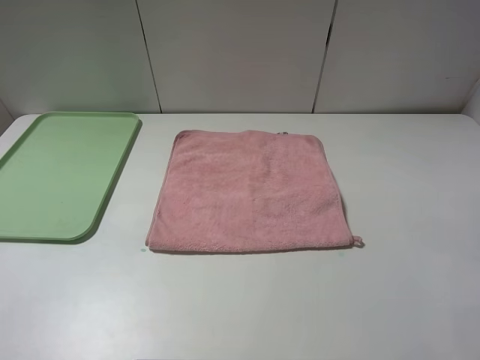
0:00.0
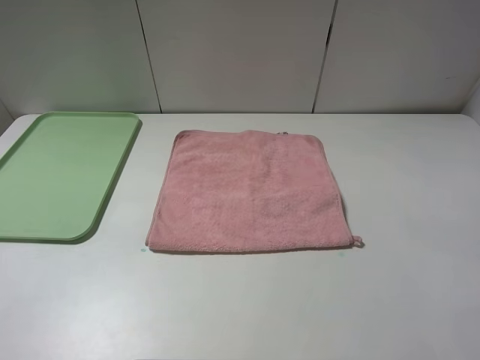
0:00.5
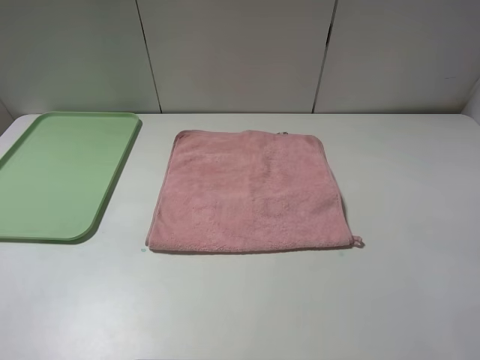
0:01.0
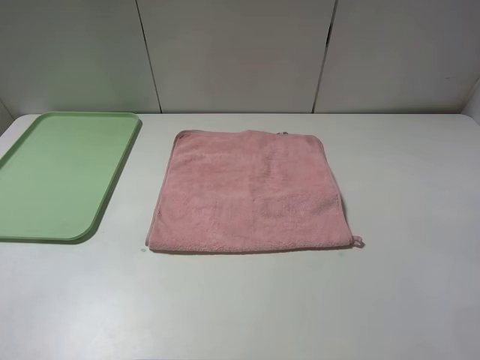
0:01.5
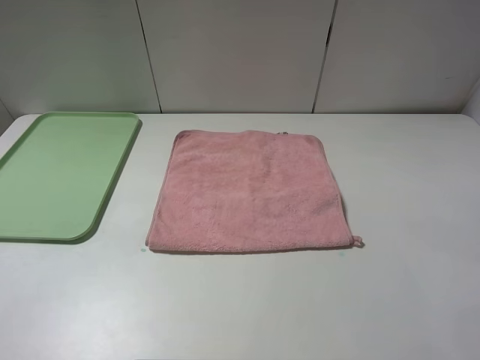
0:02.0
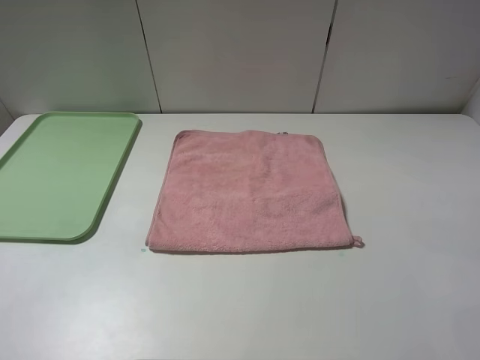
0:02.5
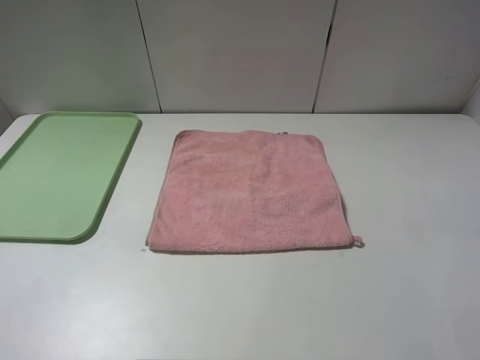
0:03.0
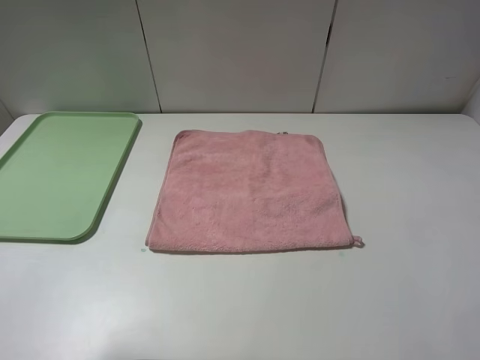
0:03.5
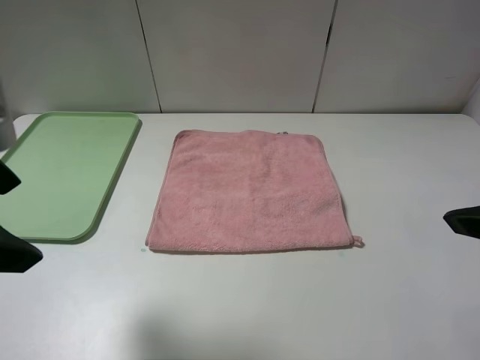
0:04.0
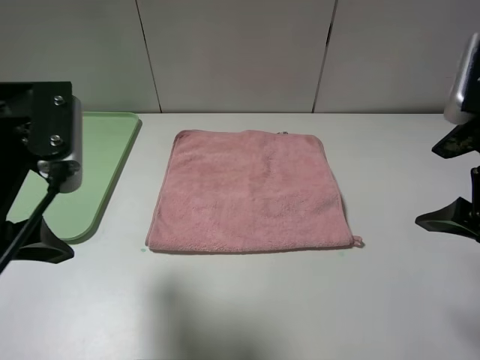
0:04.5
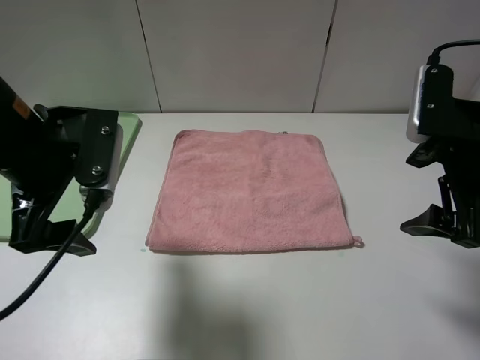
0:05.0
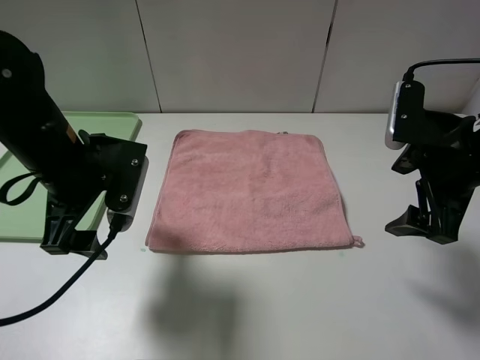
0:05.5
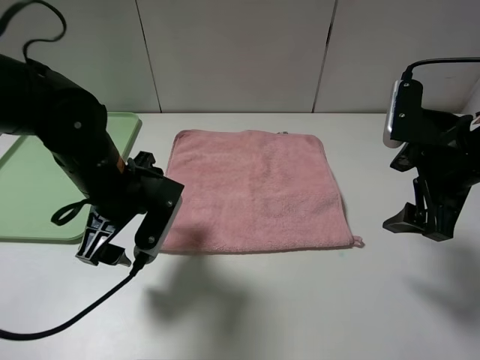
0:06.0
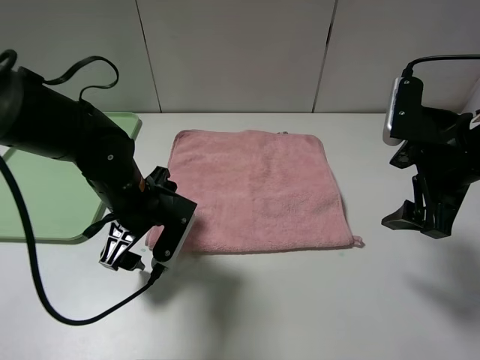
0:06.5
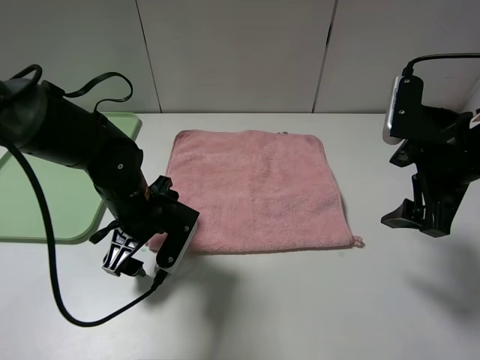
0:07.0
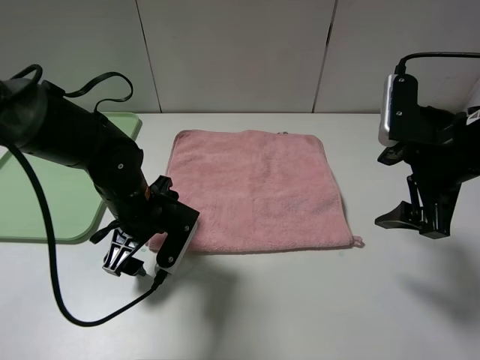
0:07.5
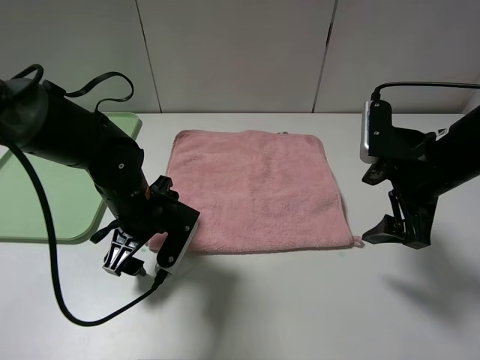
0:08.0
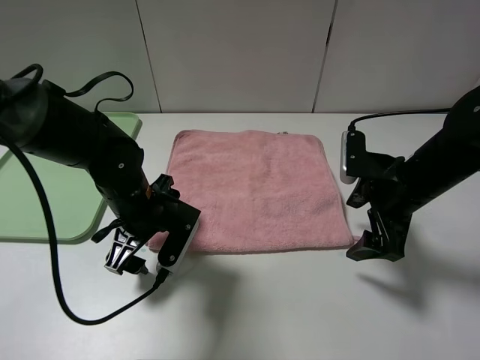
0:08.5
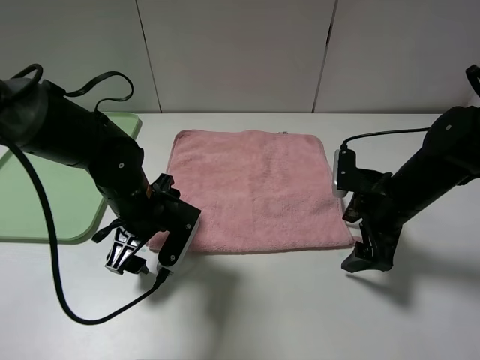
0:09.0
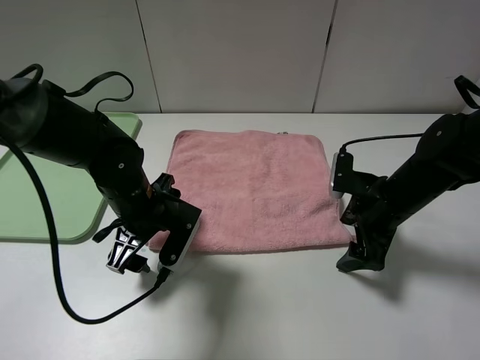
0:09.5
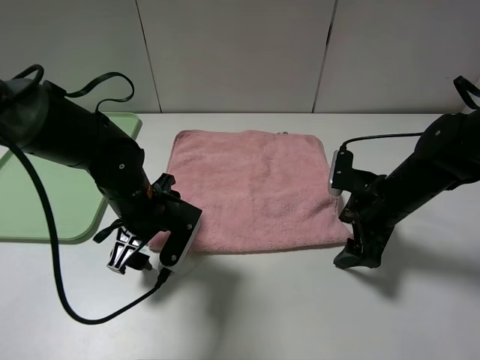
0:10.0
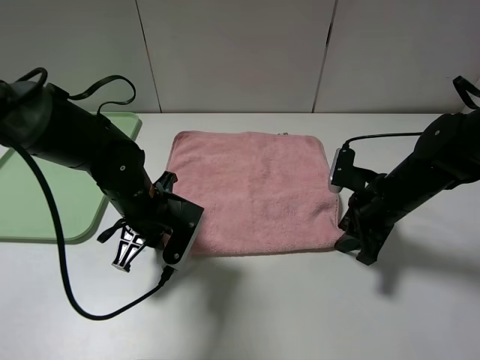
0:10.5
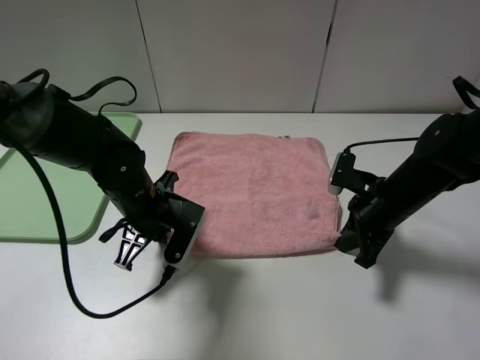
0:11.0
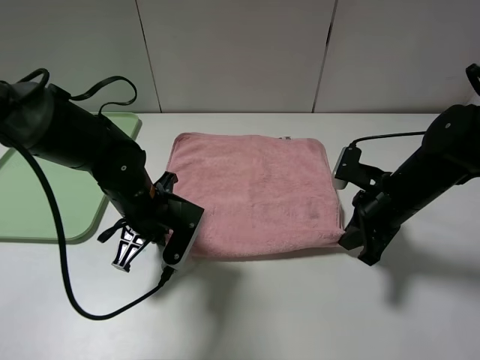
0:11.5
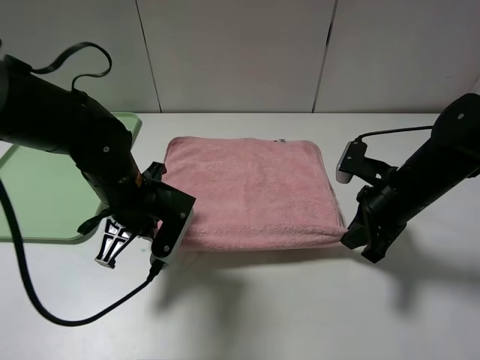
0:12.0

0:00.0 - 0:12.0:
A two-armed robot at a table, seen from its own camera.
0:00.0 - 0:02.0: Neither gripper changes place.
0:02.0 - 0:04.0: The left gripper moves forward and to the right, some 15 cm. Meanwhile the right gripper heads forward, covering roughly 15 cm.
0:04.0 - 0:06.0: The right gripper is displaced forward and downward by roughly 15 cm; the left gripper heads downward, forward and to the right, covering about 20 cm.
0:06.0 - 0:08.0: The left gripper goes approximately 5 cm downward.
0:08.0 - 0:10.0: The right gripper shifts about 10 cm downward.
0:10.0 - 0:12.0: The left gripper closes. The right gripper closes.

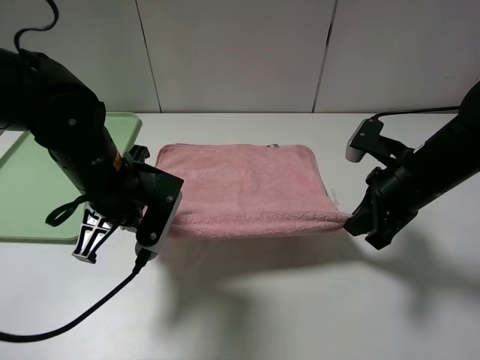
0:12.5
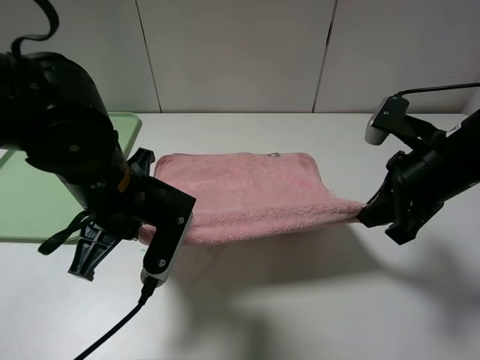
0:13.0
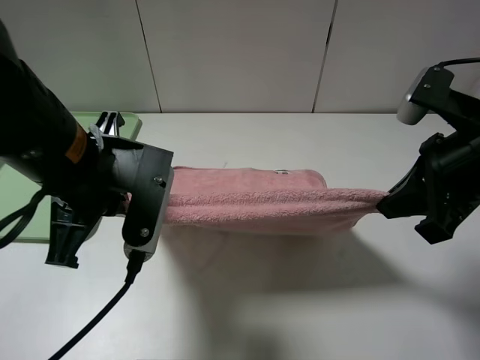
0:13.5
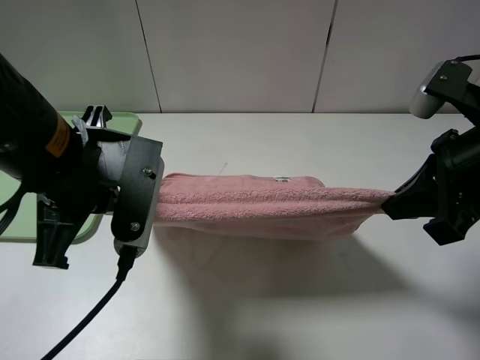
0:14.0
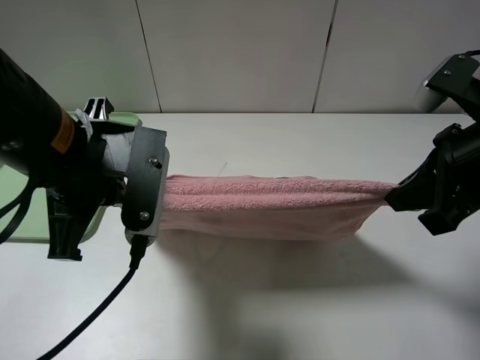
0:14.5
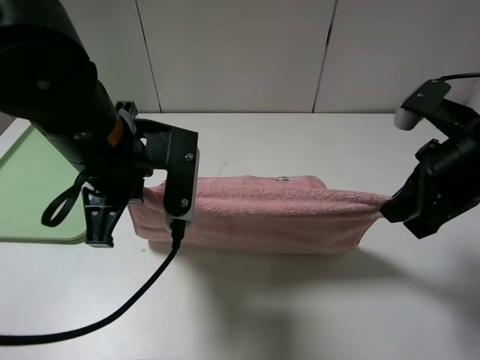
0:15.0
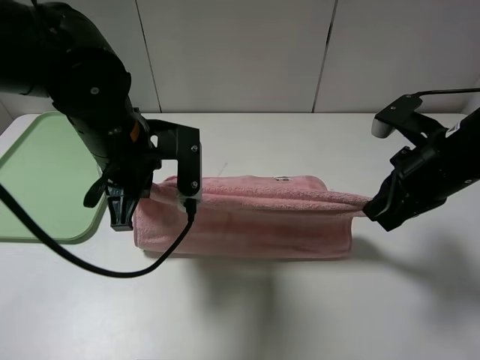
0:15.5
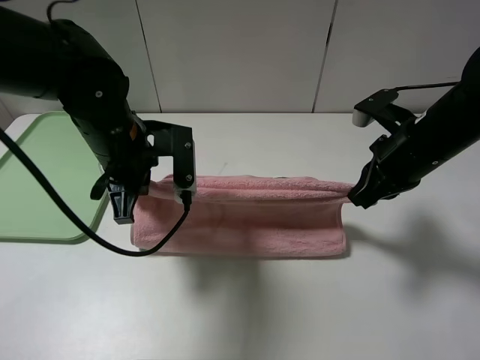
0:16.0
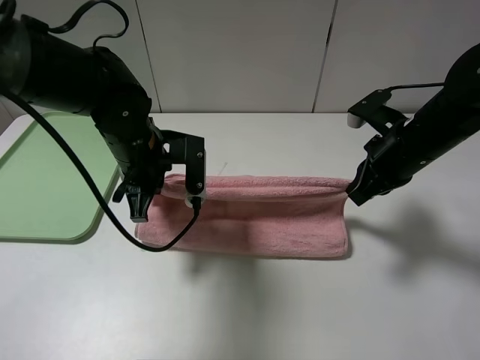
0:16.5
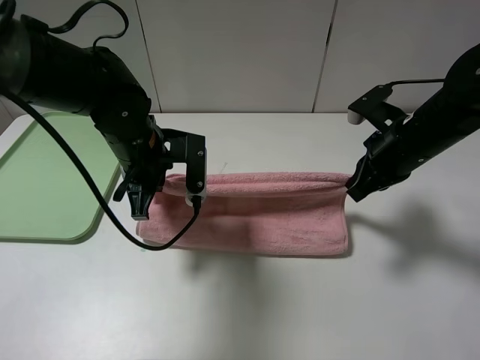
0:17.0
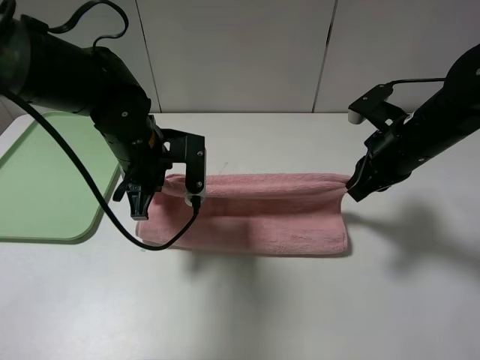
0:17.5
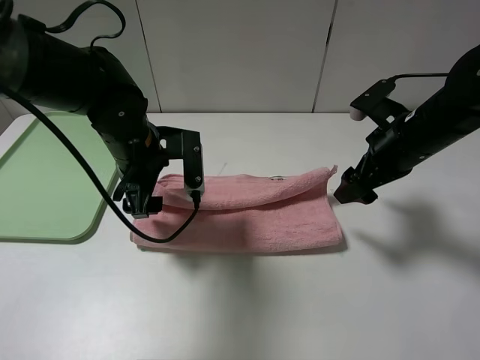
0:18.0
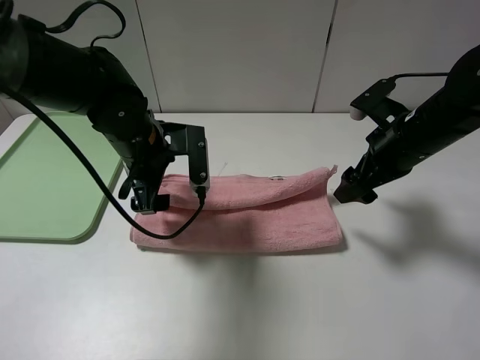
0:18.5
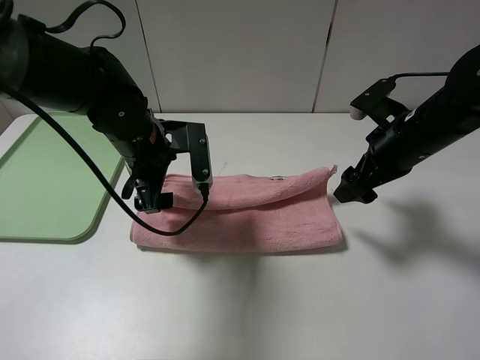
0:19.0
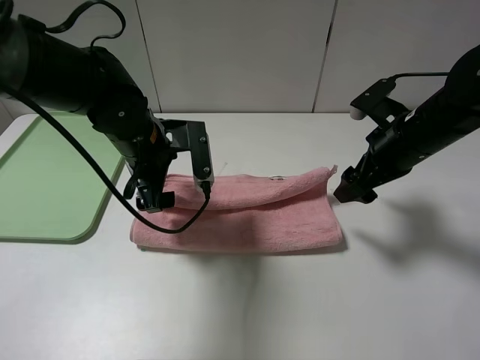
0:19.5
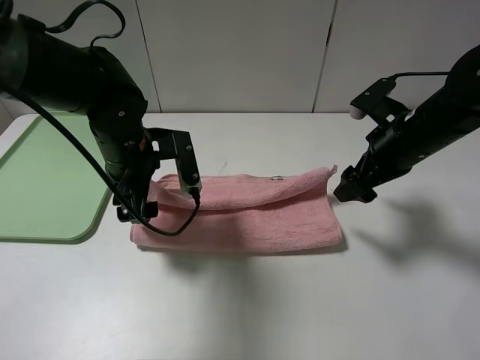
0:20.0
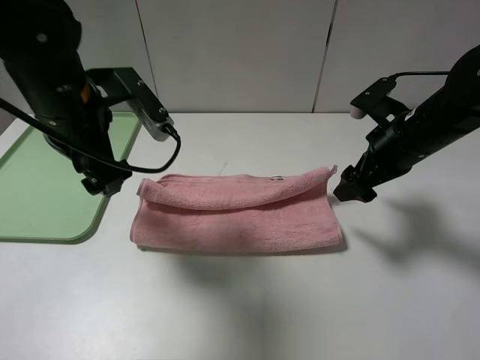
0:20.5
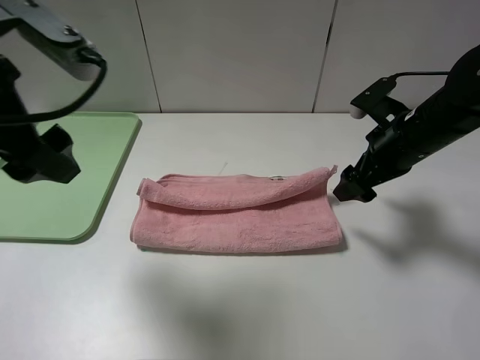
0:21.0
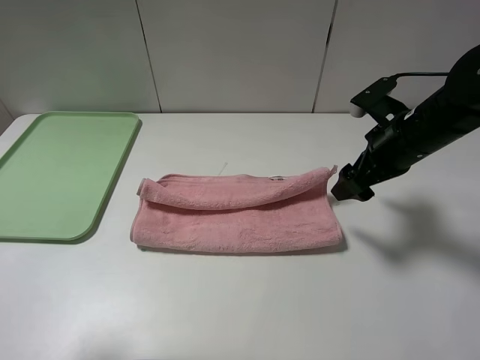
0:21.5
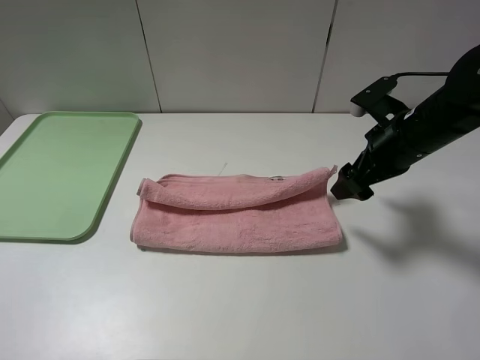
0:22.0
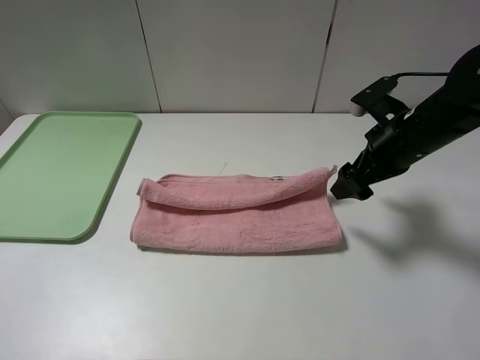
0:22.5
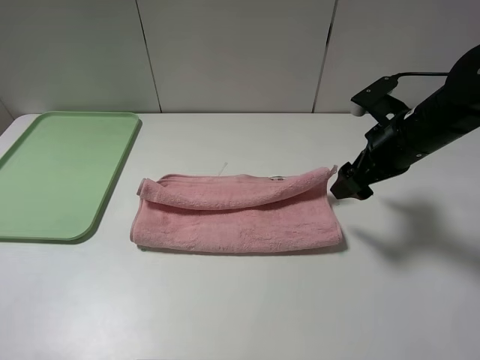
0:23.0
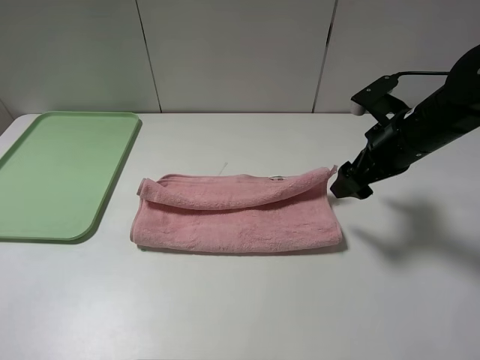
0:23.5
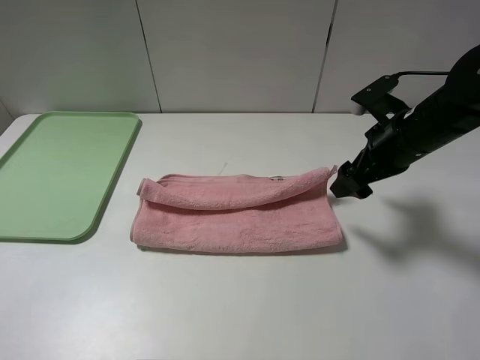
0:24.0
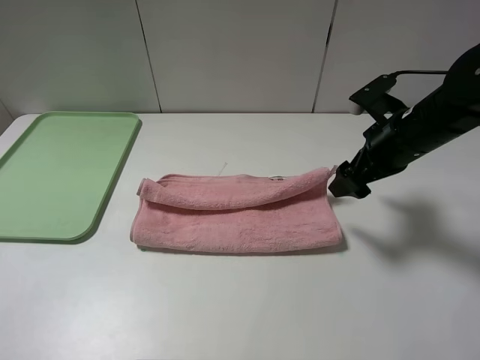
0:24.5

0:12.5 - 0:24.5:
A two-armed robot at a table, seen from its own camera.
0:12.5 - 0:14.5: The right gripper is displaced upward and backward by roughly 10 cm, while the left gripper heads upward, covering approximately 10 cm.
0:14.5 - 0:16.5: Both grippers move forward and downward, about 15 cm.
0:16.5 - 0:18.5: The left gripper opens its fingers; the right gripper opens.
0:18.5 - 0:20.5: The left gripper shifts some 10 cm upward.
0:20.5 - 0:22.5: The left gripper goes about 25 cm backward and to the left.

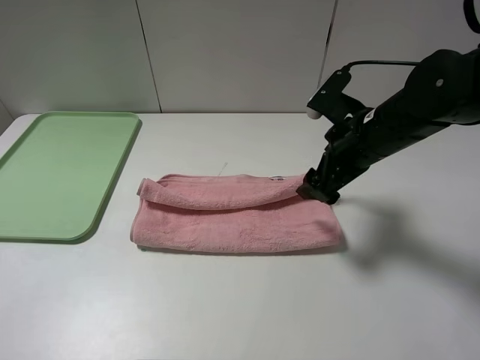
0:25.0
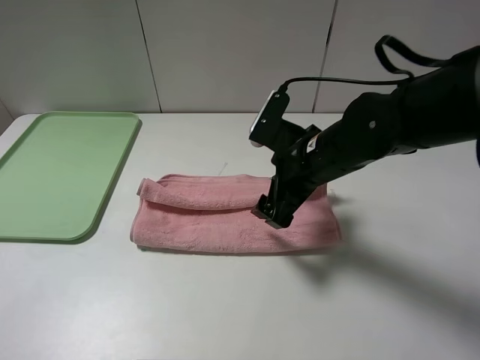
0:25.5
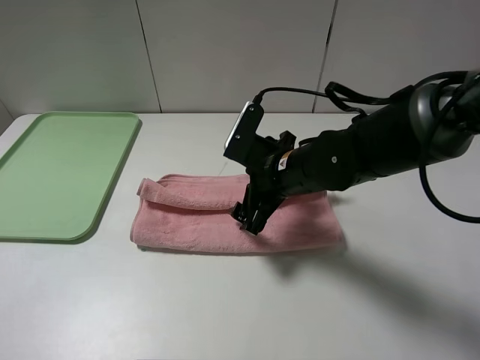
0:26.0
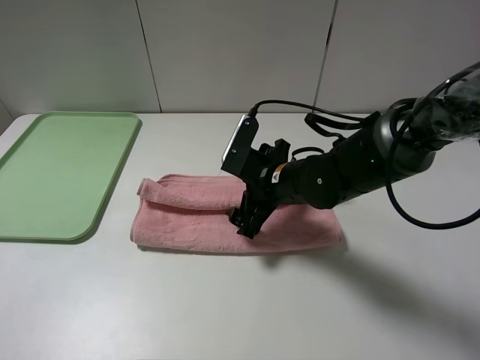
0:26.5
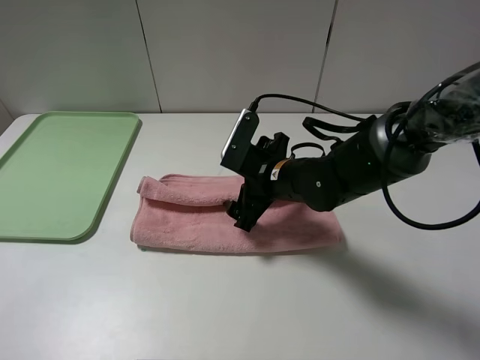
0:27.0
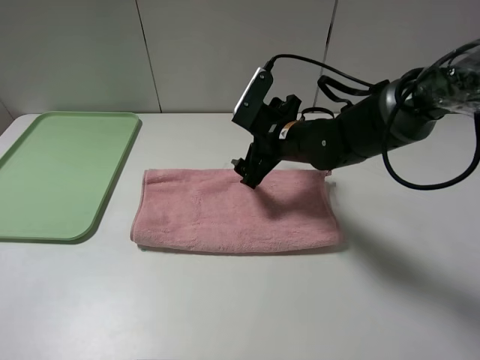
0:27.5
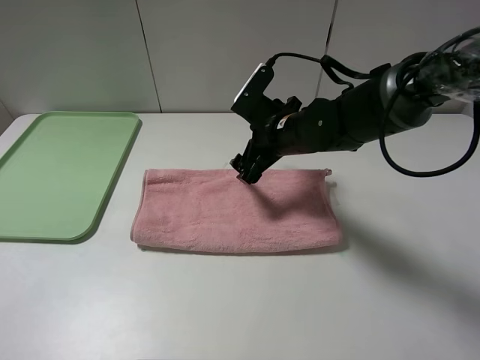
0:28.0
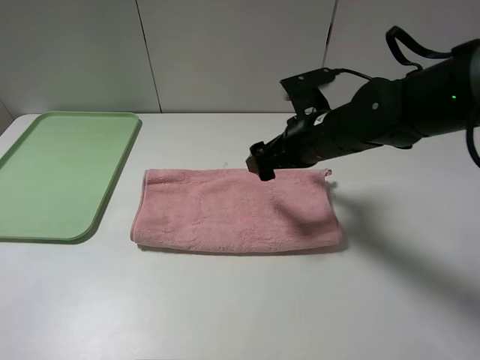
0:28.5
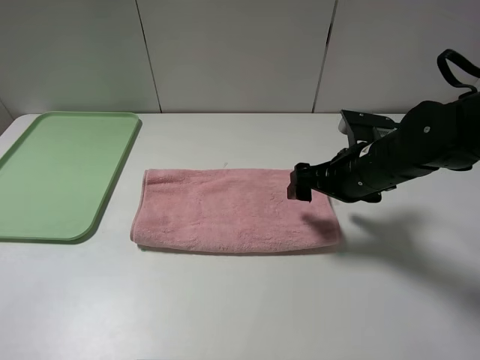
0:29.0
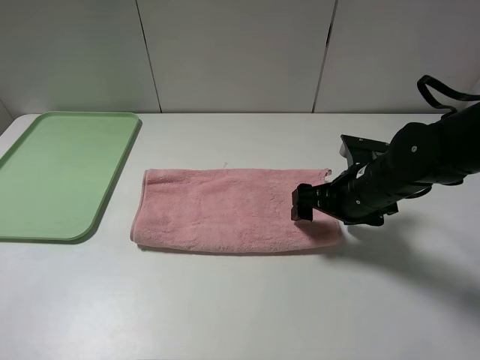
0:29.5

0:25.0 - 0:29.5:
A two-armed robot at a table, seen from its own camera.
Step, 0:25.0 - 0:27.5: Fold the pink towel upwards.
0:25.0 - 0:27.0: The right gripper goes roughly 10 cm to the left and downward.
0:27.0 - 0:29.5: The right gripper travels to the right by roughly 10 cm.
